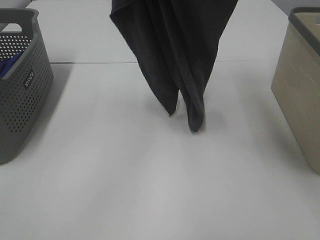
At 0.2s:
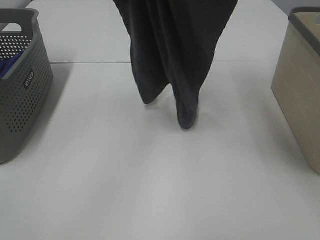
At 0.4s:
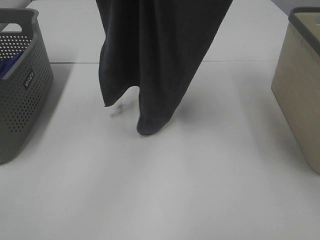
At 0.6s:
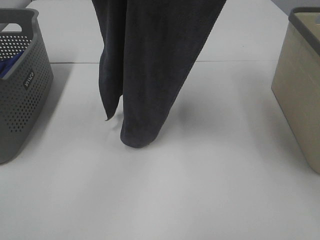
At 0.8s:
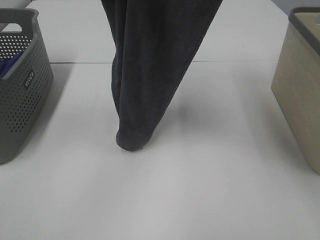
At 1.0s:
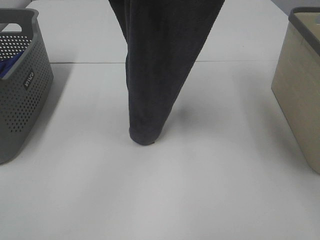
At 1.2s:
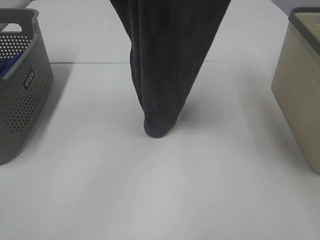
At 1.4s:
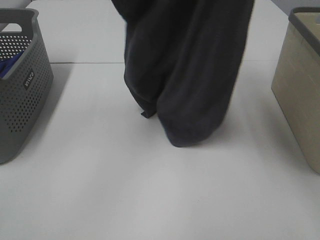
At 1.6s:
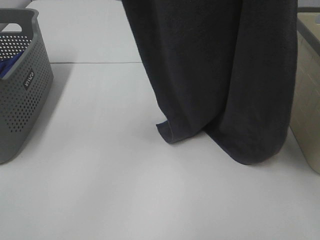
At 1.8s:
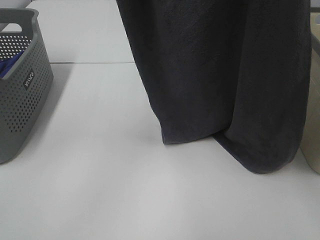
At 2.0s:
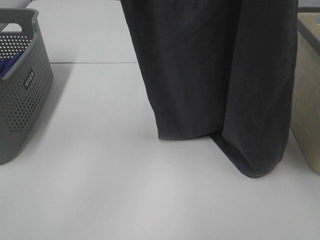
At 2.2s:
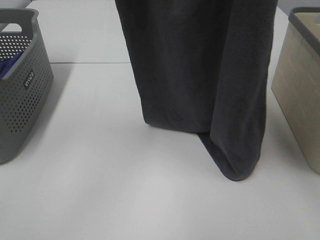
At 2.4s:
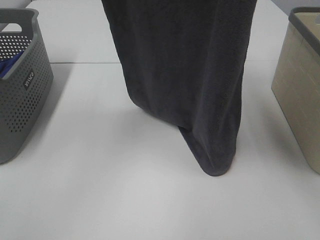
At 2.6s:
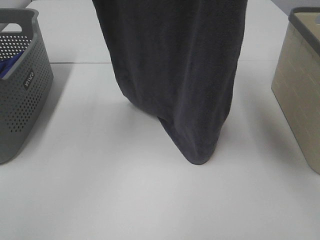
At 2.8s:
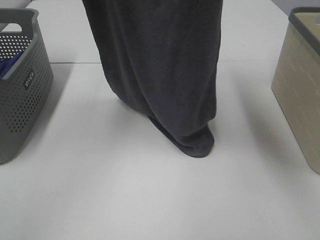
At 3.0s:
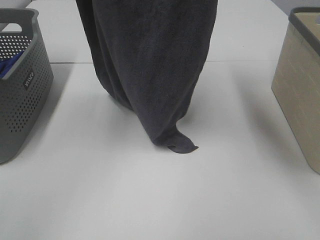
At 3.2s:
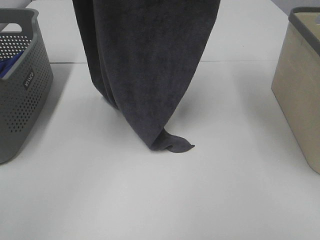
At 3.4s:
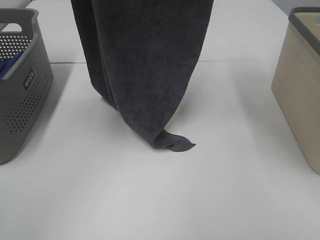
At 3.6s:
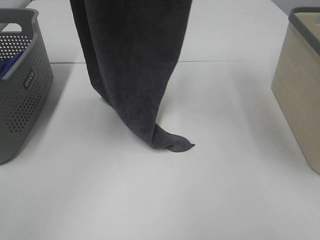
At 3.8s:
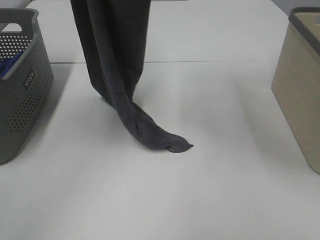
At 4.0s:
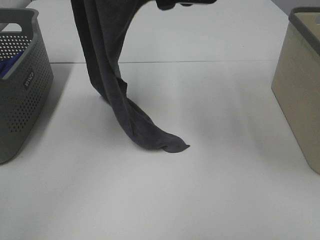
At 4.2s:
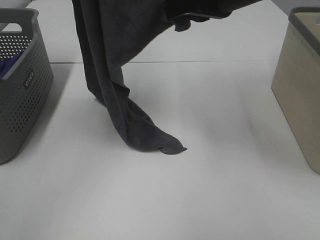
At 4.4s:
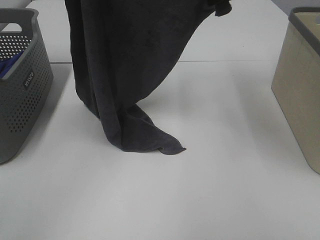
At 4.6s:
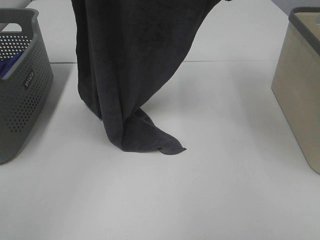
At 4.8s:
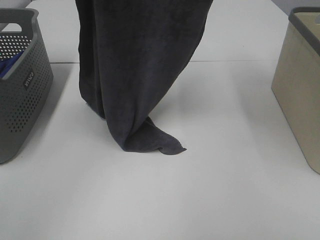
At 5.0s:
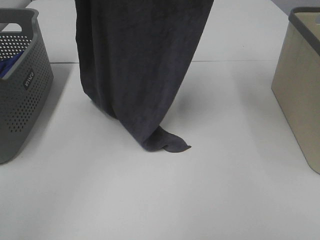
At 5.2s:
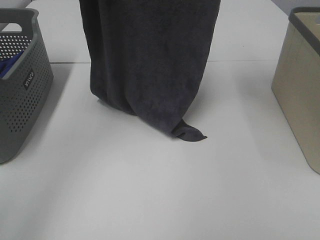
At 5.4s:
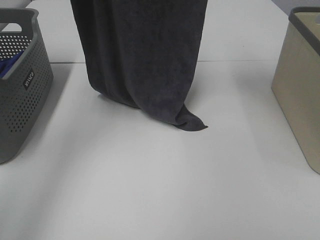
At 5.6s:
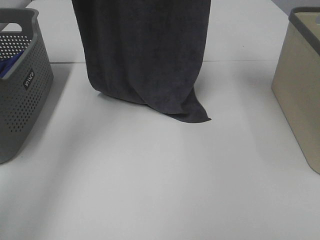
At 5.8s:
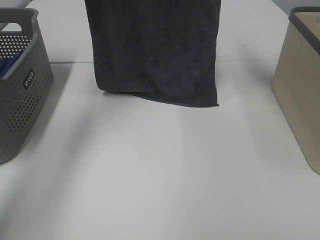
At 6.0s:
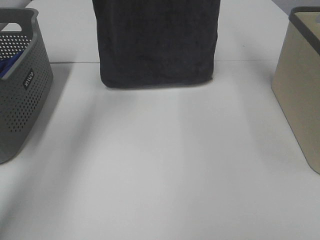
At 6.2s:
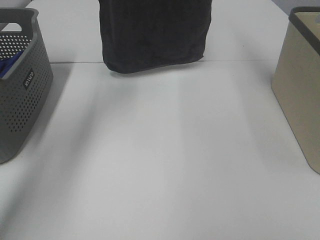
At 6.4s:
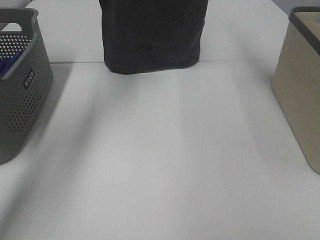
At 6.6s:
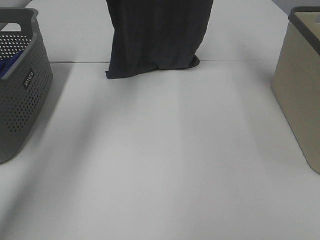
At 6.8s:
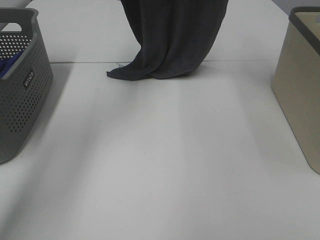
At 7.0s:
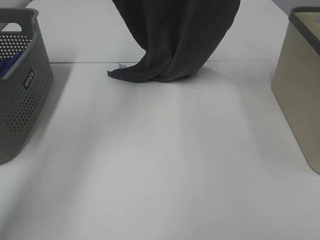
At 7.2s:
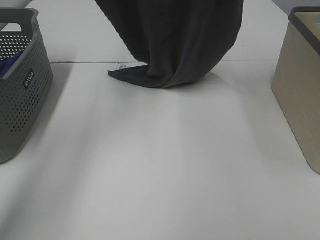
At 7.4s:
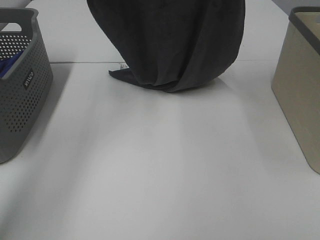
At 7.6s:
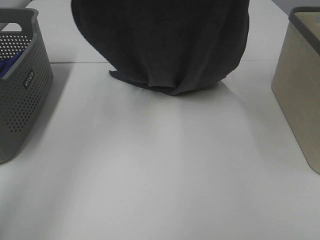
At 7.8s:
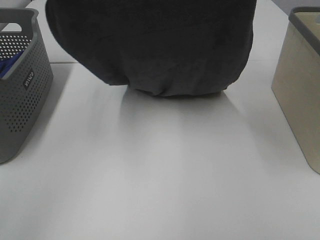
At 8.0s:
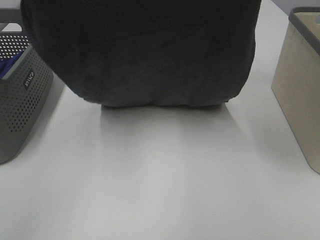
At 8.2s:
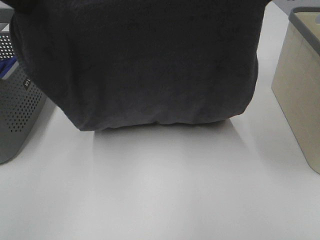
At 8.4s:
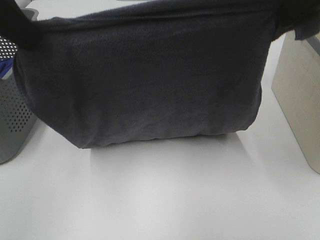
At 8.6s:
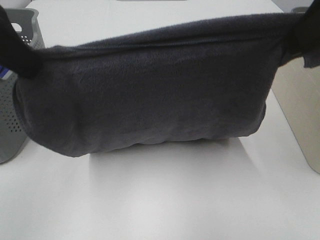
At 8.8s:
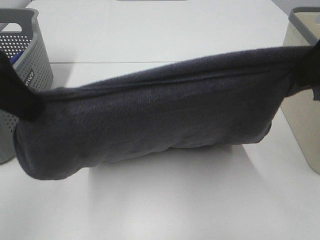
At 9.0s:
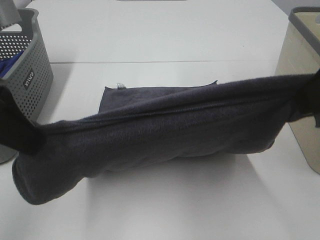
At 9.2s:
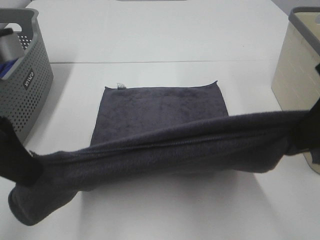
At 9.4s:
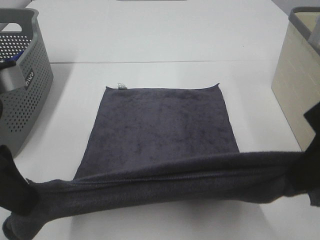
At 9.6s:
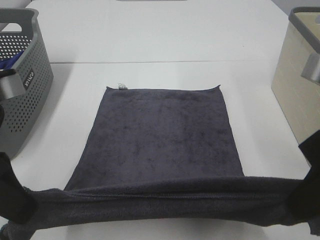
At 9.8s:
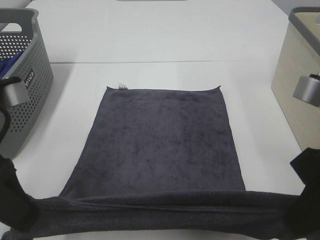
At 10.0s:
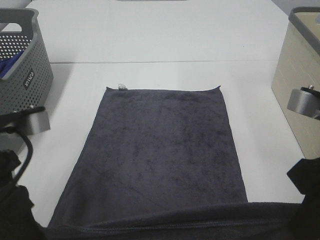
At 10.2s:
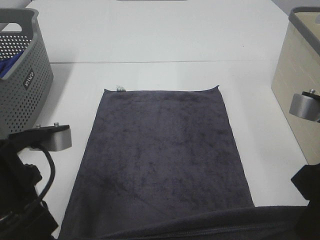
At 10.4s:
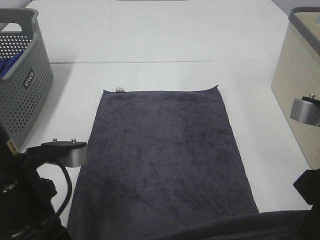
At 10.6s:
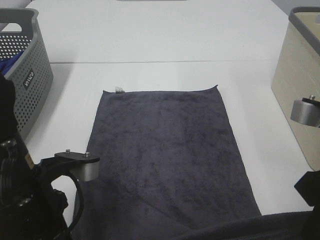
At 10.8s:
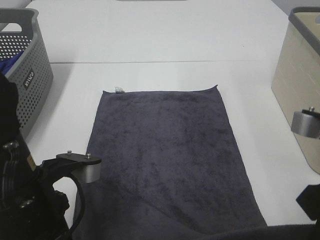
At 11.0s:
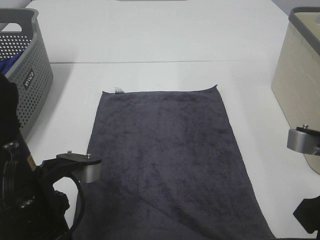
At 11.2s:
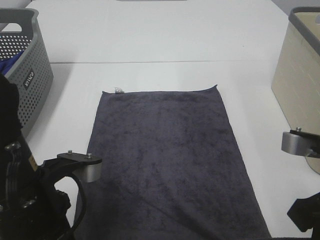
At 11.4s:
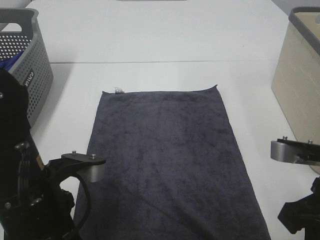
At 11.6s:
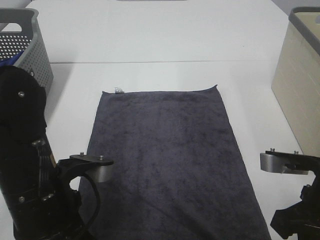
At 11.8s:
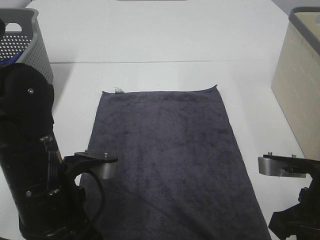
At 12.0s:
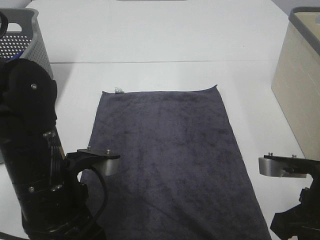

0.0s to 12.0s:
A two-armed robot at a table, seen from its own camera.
Task of the whole recording: Remove the towel and place it.
Step, 0.0s to 2.0s: Right hand: grab a corner of the grey towel and straighten it.
Step, 2.2s to 7.0s: Left hand: spread the grey towel flat on the table.
Step, 2.2s to 7.0s: Right hand: spread the grey towel flat on the table.
1.6s to 3.0s: The left gripper moves to the left, some 5 cm. The right gripper heads forward, covering about 5 cm.
3.0s to 4.4s: The right gripper heads forward and downward, covering roughly 10 cm.
4.4s to 6.0s: The left gripper goes about 15 cm forward. Meanwhile the right gripper travels forward and upward by some 20 cm.
6.0s to 7.6s: The right gripper heads backward, covering some 15 cm. The left gripper moves backward and downward, roughly 15 cm.
7.6s to 9.0s: Both grippers move backward and downward, roughly 20 cm.
9.0s to 10.4s: The two grippers go some 10 cm downward.
10.4s to 12.0s: The right gripper goes roughly 10 cm downward.

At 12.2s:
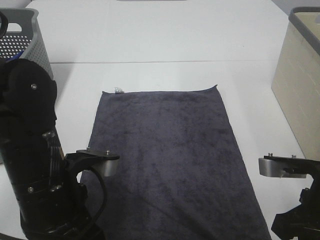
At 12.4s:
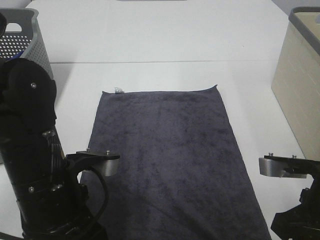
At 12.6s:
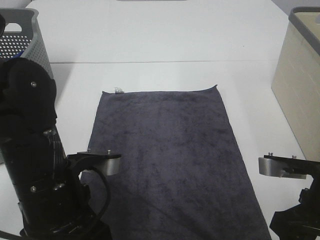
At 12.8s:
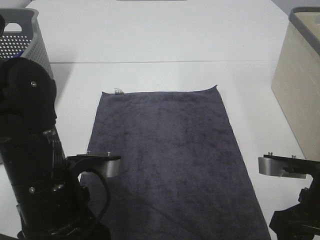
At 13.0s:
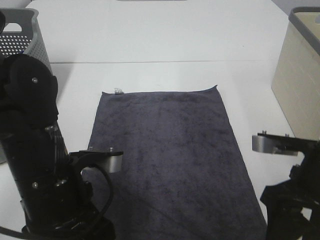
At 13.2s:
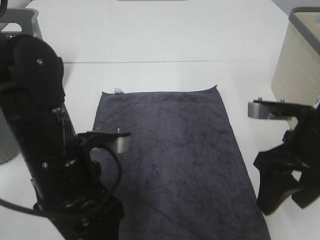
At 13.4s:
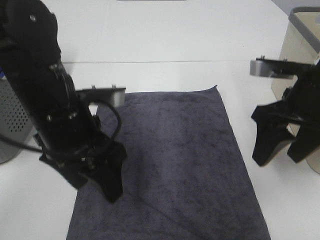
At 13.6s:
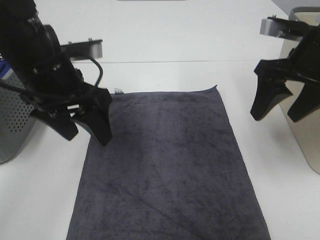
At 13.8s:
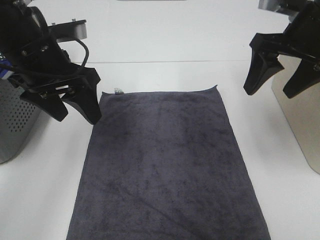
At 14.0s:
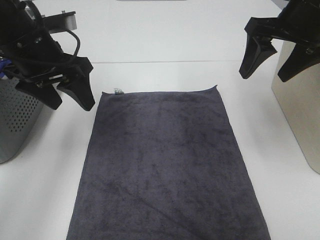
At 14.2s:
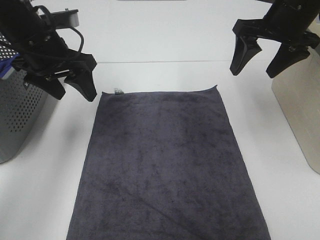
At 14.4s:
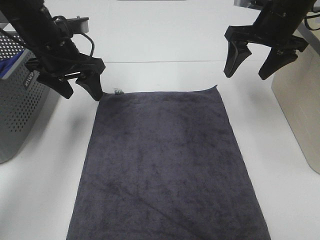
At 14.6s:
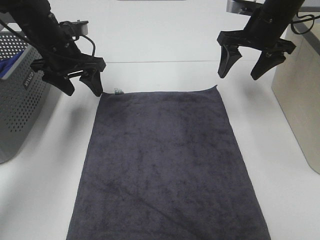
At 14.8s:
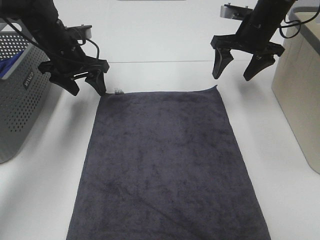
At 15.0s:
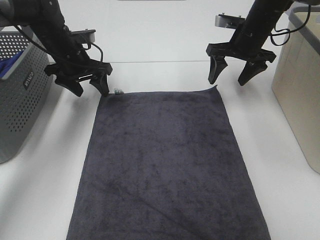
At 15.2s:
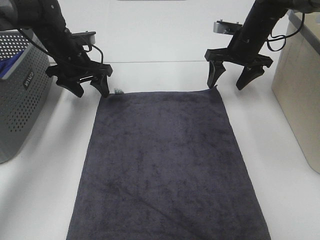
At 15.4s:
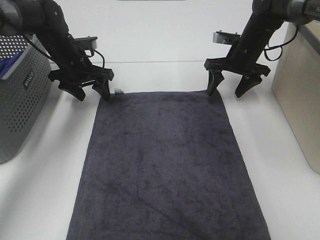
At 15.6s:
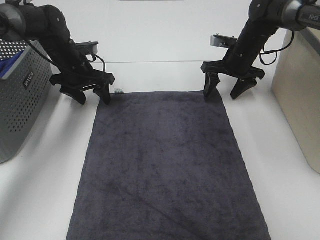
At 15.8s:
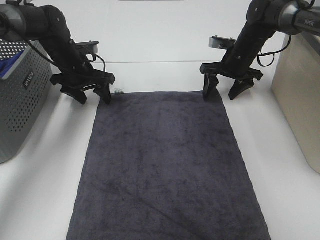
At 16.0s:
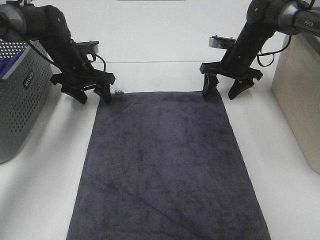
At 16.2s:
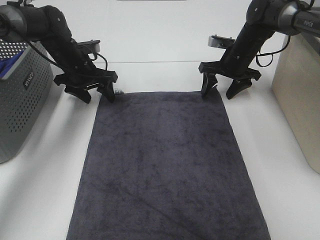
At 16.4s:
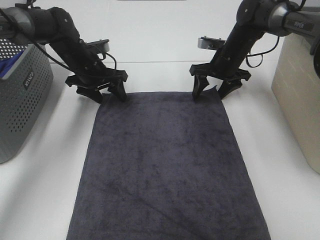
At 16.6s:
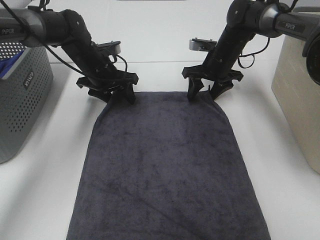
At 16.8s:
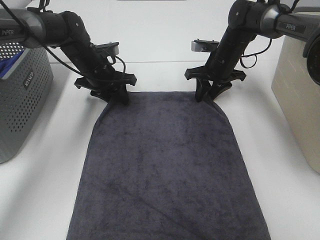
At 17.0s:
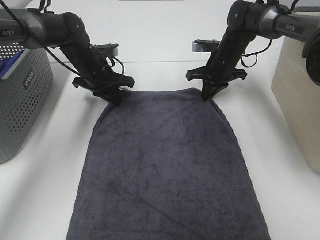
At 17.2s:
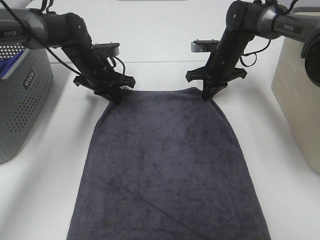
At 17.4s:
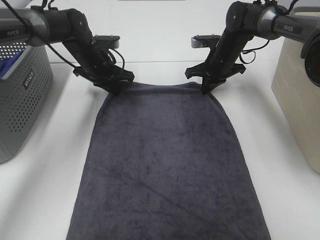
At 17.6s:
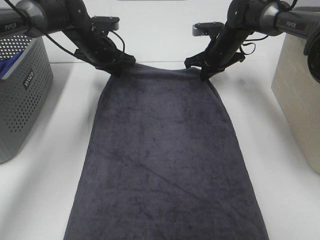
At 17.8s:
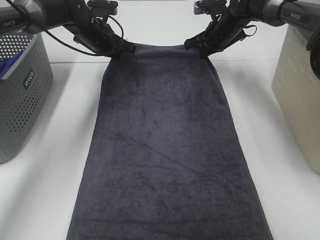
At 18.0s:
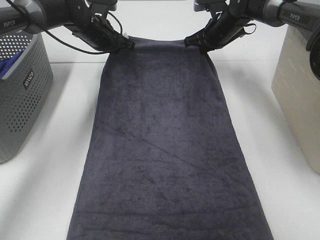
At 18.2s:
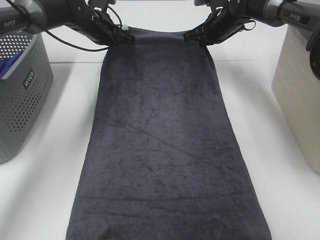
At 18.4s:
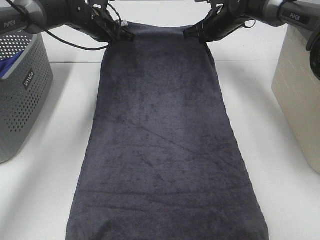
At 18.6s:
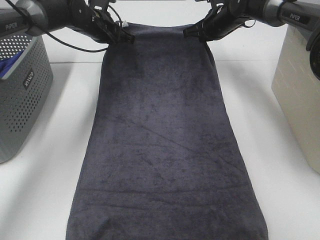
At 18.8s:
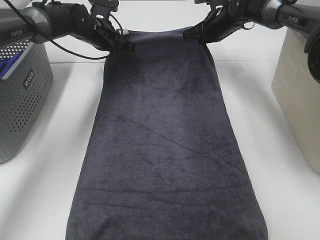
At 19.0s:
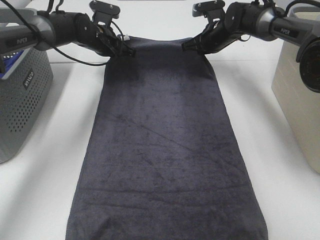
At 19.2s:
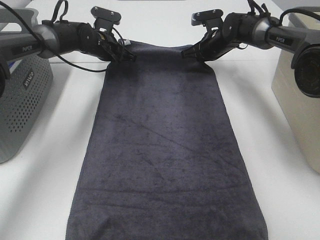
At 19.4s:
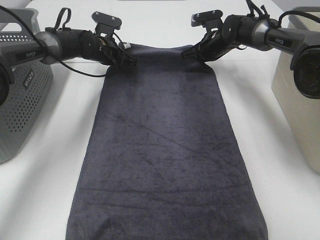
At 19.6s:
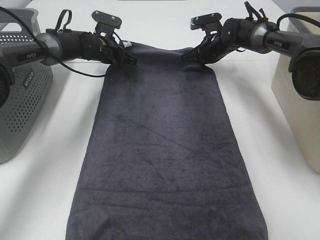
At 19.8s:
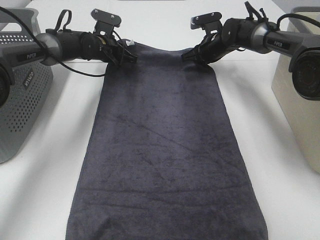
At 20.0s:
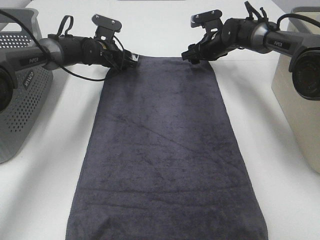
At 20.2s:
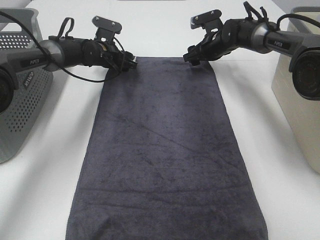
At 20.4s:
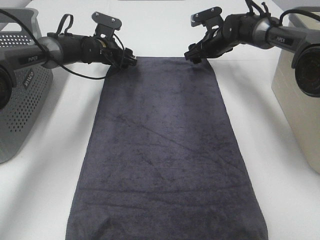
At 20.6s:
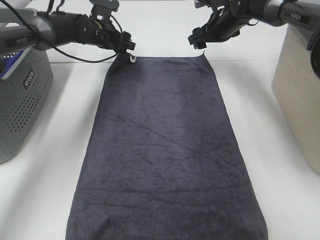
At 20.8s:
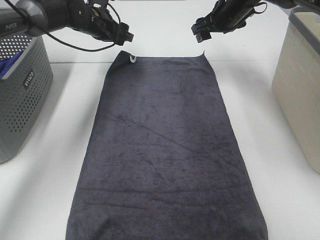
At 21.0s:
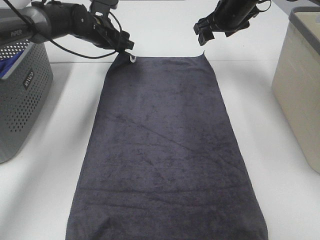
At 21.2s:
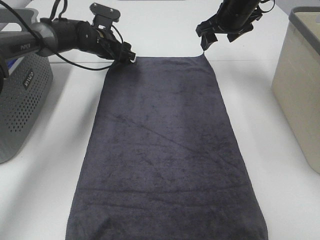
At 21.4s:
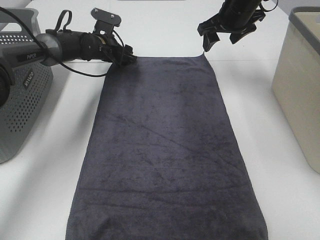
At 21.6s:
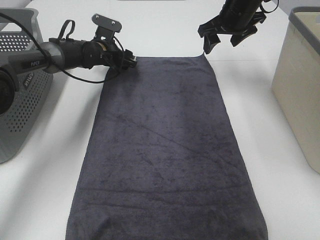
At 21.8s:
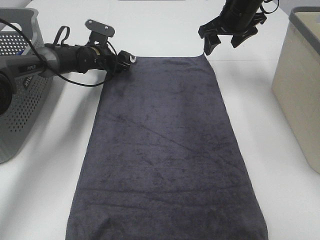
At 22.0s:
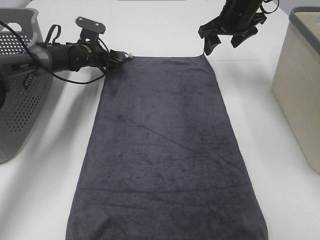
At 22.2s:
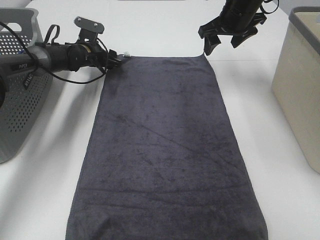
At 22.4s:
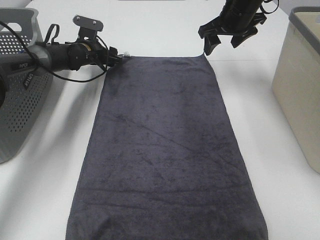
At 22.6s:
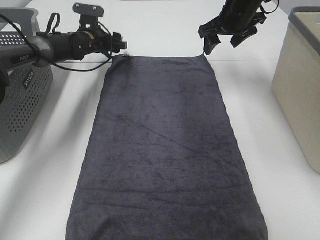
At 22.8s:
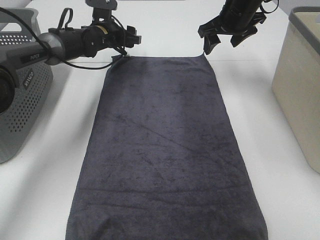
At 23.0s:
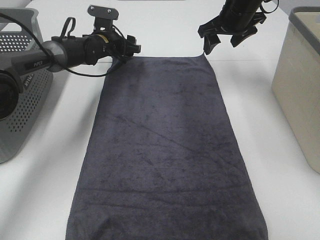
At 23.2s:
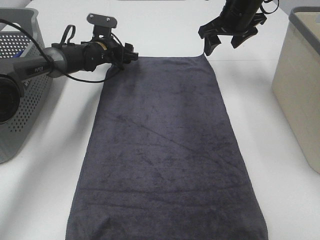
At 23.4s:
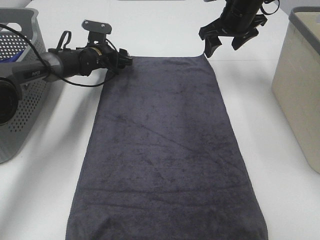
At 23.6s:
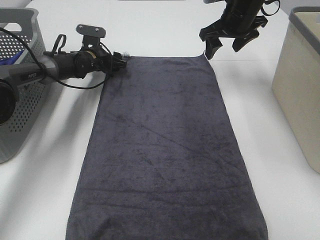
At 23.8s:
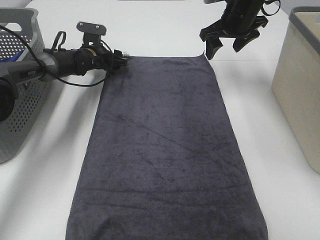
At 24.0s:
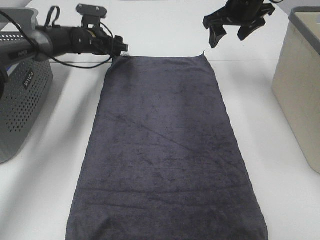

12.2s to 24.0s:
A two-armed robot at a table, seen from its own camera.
Task of the whole recording: Remove the towel and place it.
Step, 12.2s to 16.0s: Left hand:adjust the gray towel.
12.2s to 13.6s: Both grippers travel together forward and upward, some 15 cm. The right gripper opens. Meanwhile the left gripper opens up.
13.6s to 15.2s: The grippers both shift forward and downward by some 20 cm.
15.2s to 16.6s: The right gripper ends up approximately 5 cm from where it was; the left gripper changes place by about 5 cm.
16.6s to 18.2s: Both grippers move upward and forward, approximately 10 cm. The left gripper closes its fingers. The right gripper closes its fingers.
18.2s to 19.6s: The grippers both shift downward by about 5 cm.
19.6s to 21.0s: The right gripper is displaced upward by approximately 10 cm, and opens. Meanwhile the left gripper opens up.
22.6s to 24.0s: The grippers move only a little.
